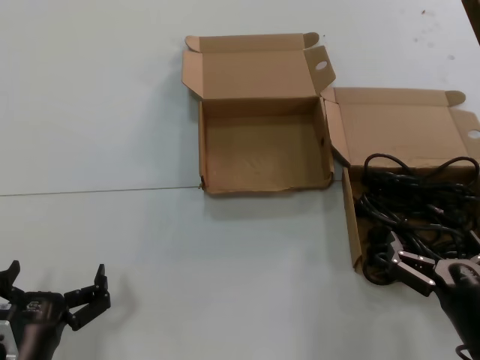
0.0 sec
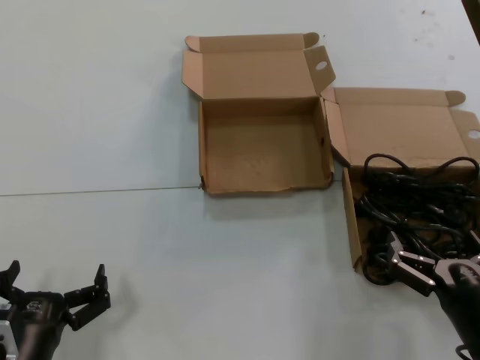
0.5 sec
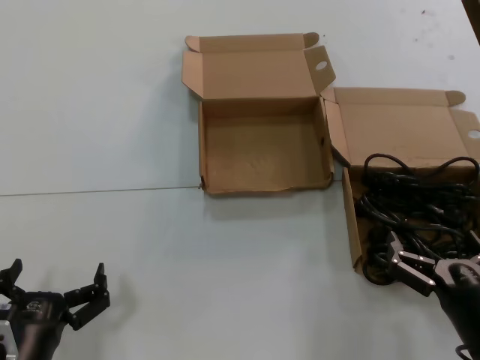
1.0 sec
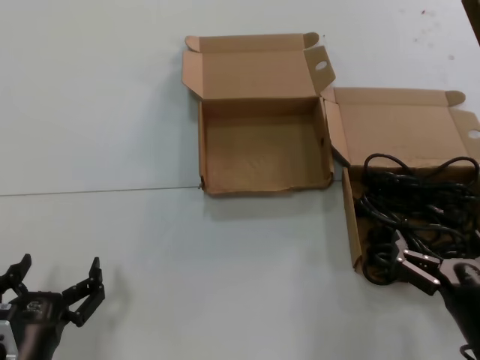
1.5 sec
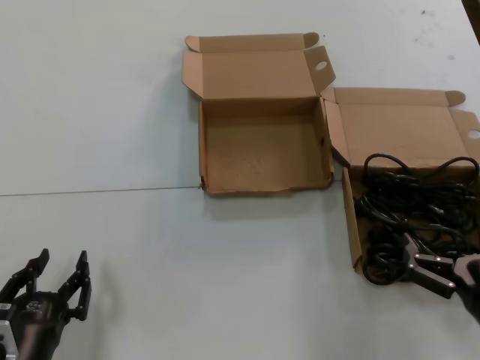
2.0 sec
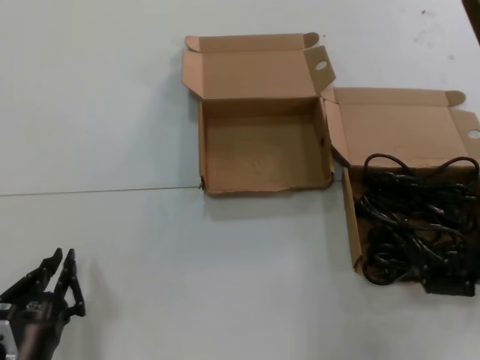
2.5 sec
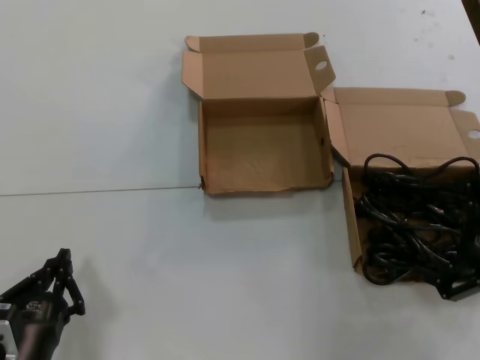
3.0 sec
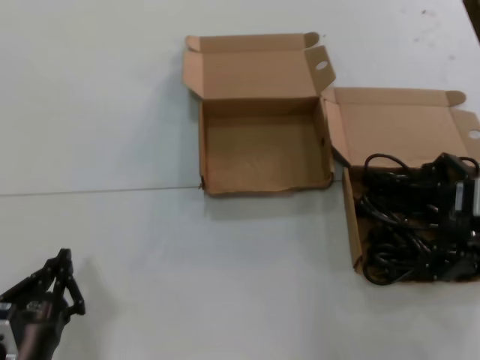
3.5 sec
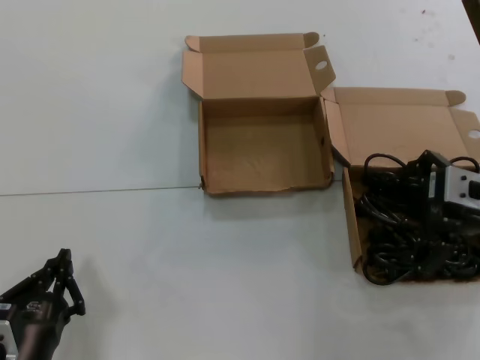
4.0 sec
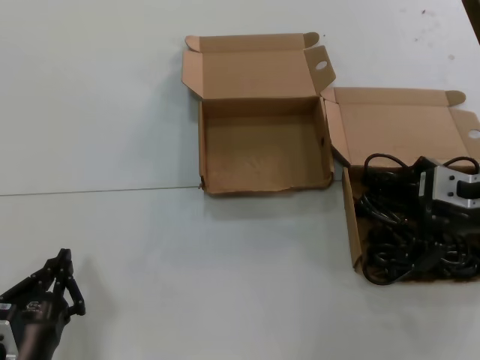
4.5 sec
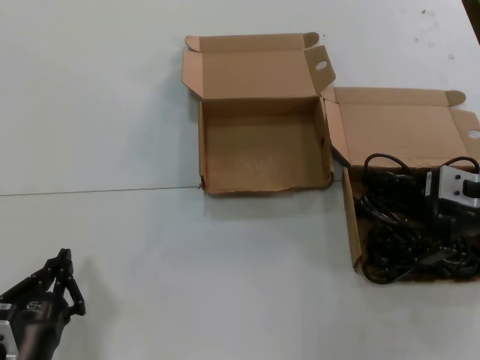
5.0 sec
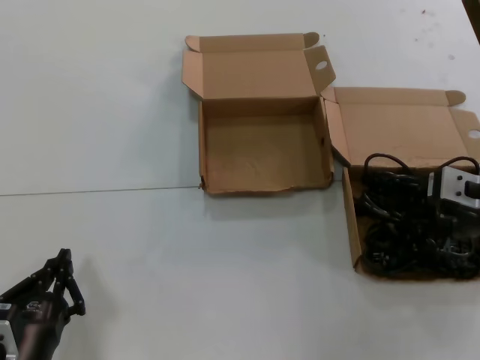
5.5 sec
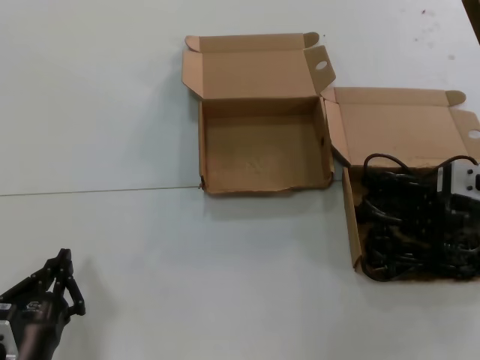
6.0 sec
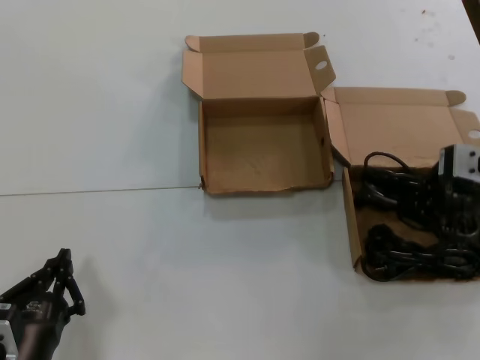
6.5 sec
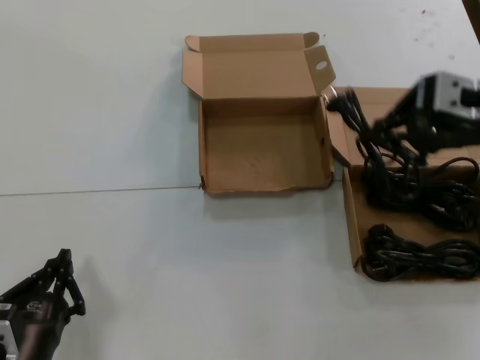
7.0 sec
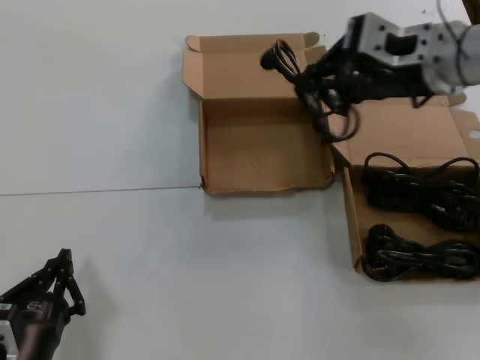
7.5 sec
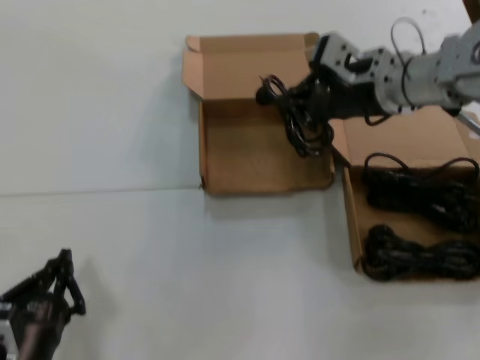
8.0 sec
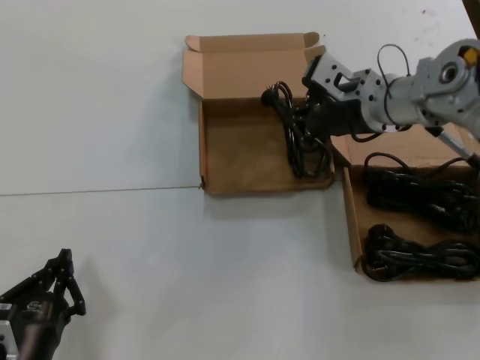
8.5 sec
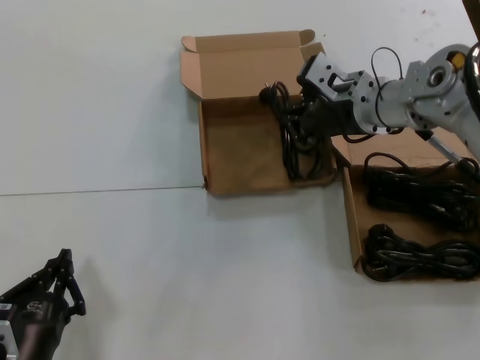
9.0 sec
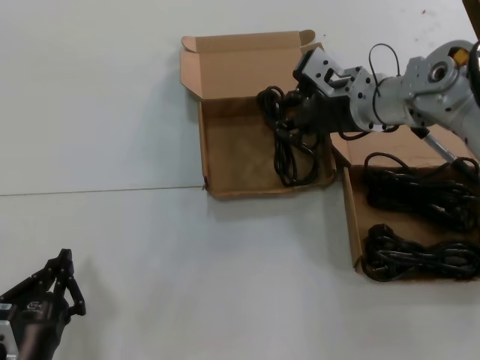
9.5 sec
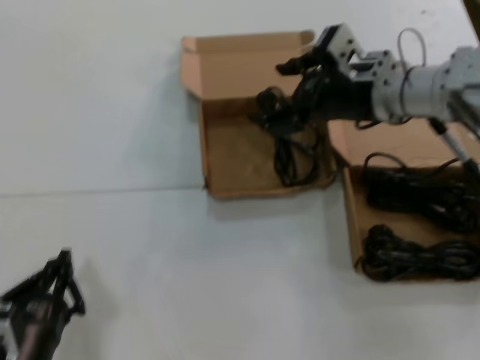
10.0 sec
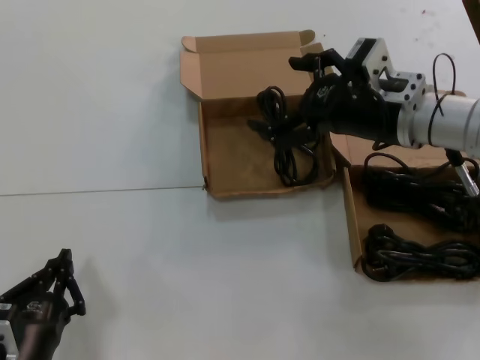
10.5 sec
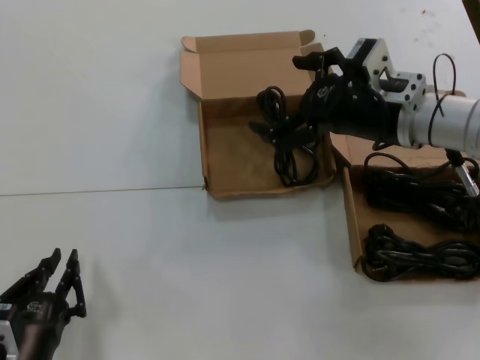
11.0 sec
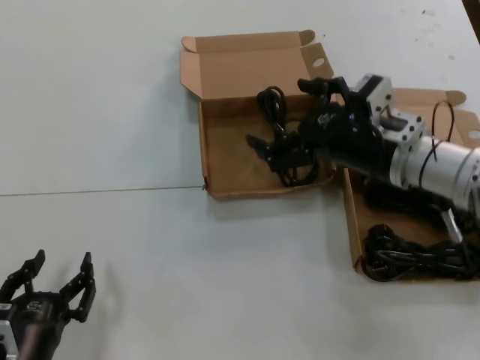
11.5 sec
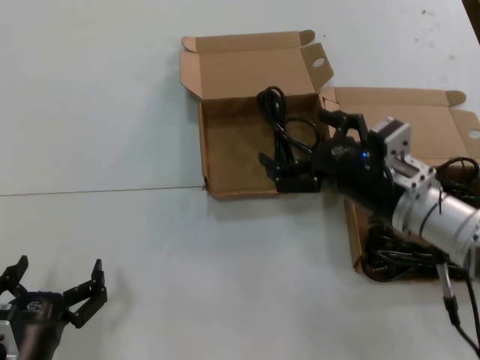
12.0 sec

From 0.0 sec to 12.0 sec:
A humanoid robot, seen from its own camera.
Task of the whole recording: take the parts from the box containing them and put them into an empty box.
Step, from 0.0 sec to 5.0 sec: Grasp the data cable.
Step, from 5.5 sec to 9.0 sec: Place the data cable in the another box.
From 0.0 sec to 2.0 sec: There are only small adjustments of the hands.
From 2.0 sec to 4.0 sec: The right hand goes approximately 25 cm upward and forward.
From 4.0 sec to 6.0 sec: The hands make only small movements.
From 6.0 sec to 8.0 sec: The right hand is displaced to the left, forward and upward by roughly 20 cm.
From 8.0 sec to 10.0 sec: The hands move only a little.
From 10.0 sec to 12.0 sec: The right hand goes some 15 cm downward and backward.

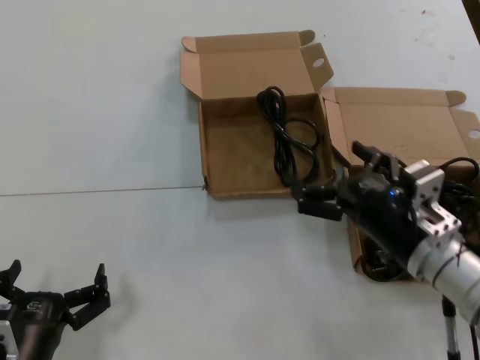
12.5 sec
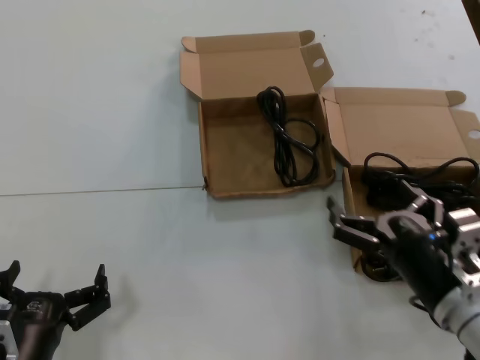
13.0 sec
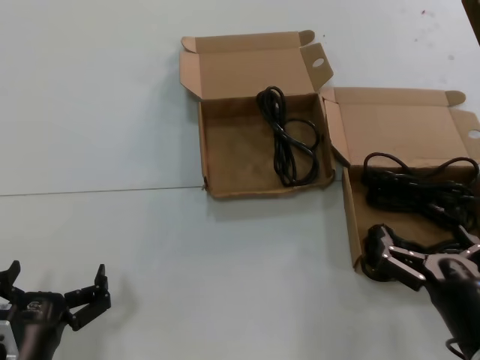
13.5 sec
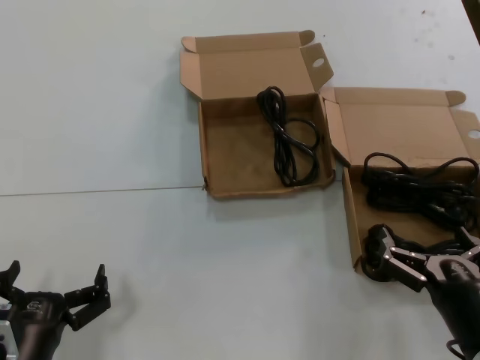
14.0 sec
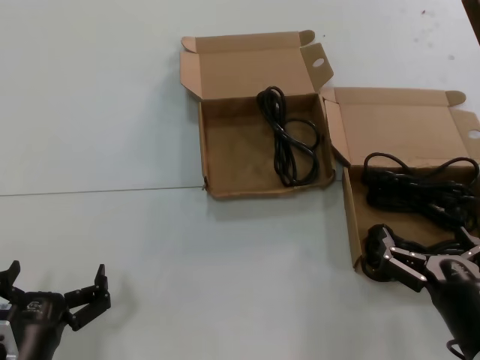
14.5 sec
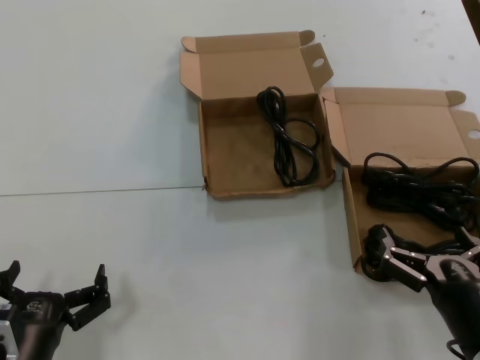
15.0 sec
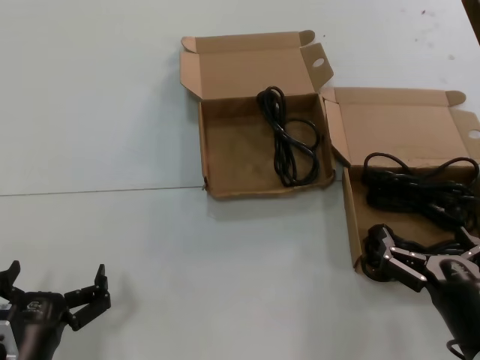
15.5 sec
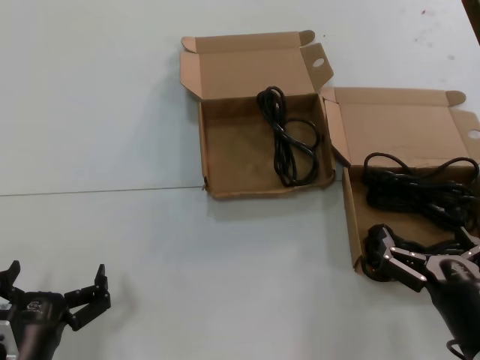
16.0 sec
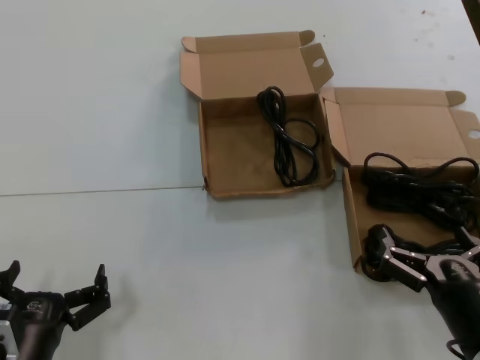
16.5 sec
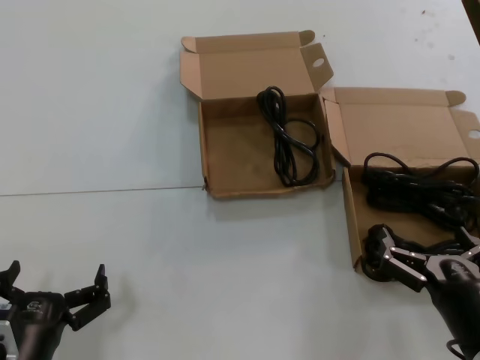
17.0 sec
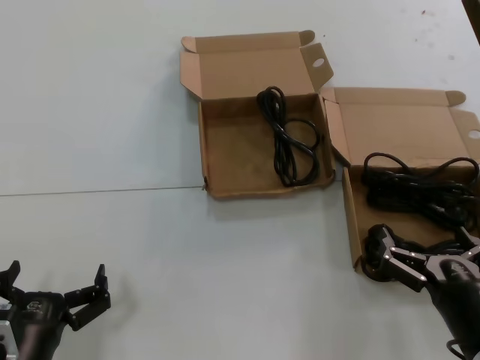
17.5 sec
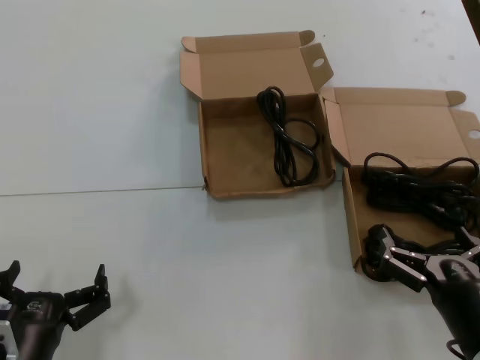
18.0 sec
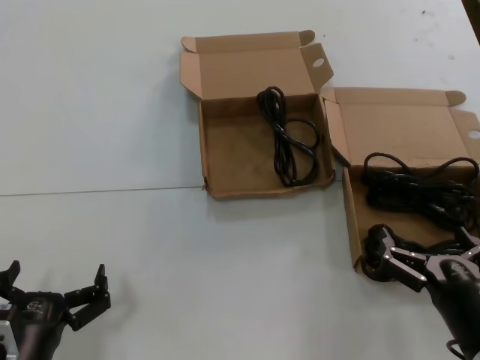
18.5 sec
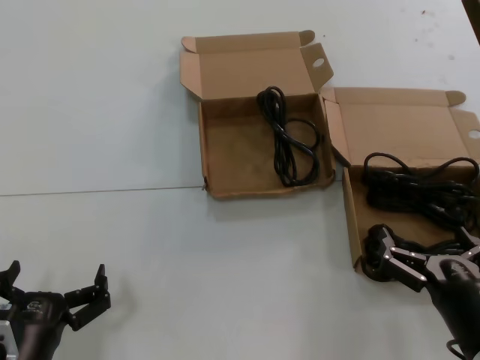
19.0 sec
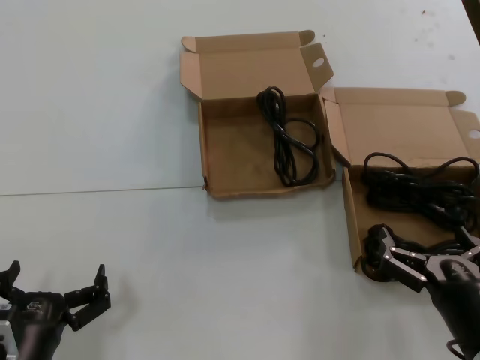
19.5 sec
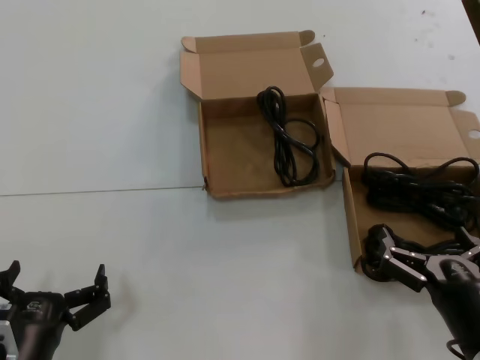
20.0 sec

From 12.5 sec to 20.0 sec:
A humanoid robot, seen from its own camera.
Task of the whole recording: take the parts from the box containing them and put them into an empty box.
From 12.5 sec to 14.5 sec: The right hand goes roughly 15 cm backward and downward.
From 14.5 sec to 20.0 sec: Neither hand changes place.

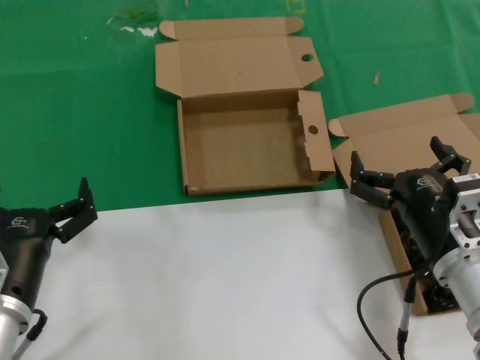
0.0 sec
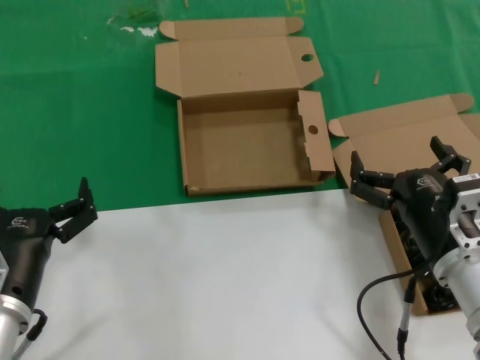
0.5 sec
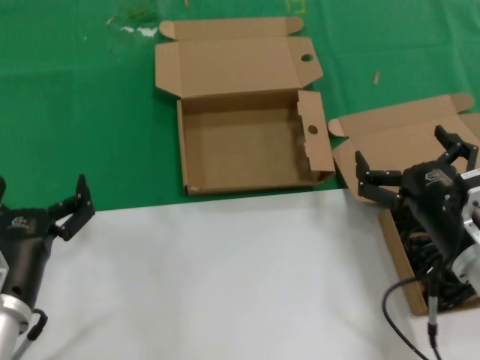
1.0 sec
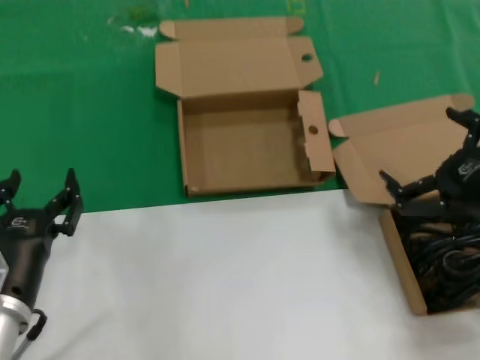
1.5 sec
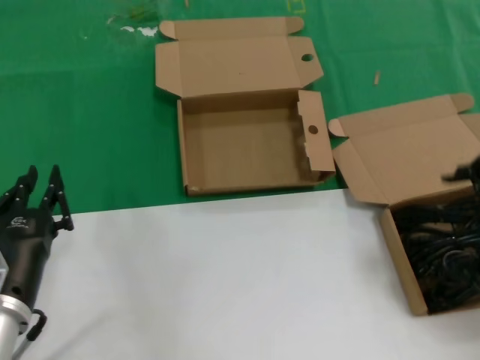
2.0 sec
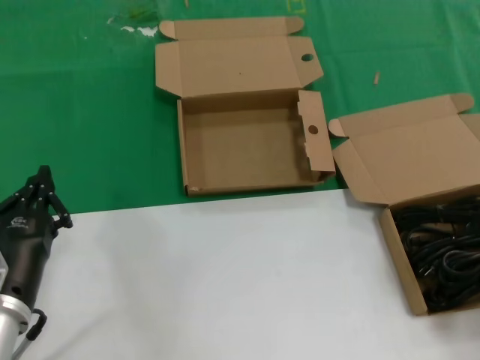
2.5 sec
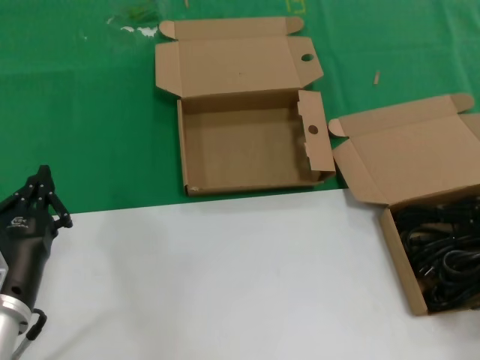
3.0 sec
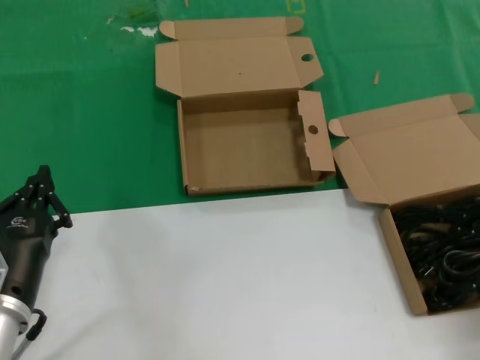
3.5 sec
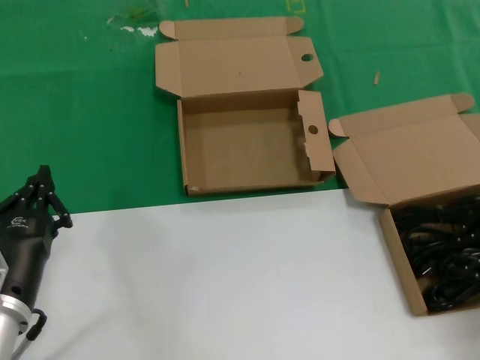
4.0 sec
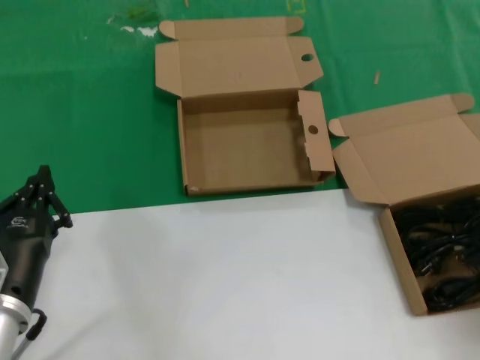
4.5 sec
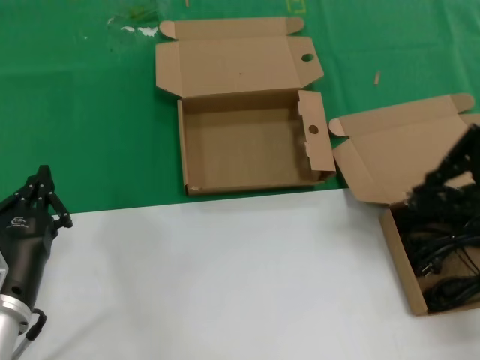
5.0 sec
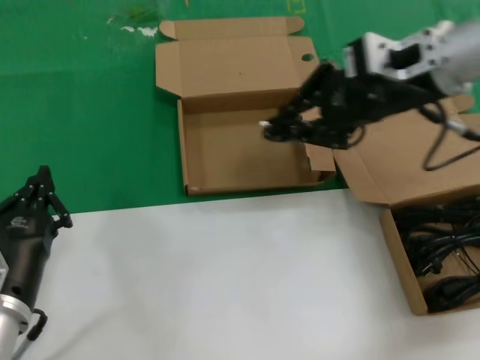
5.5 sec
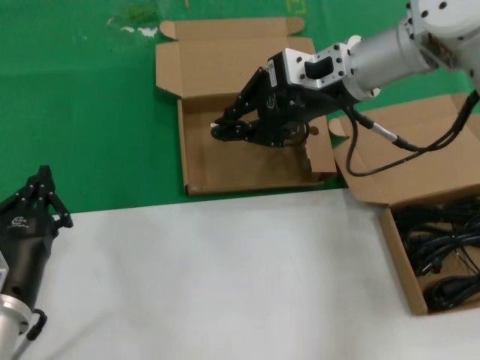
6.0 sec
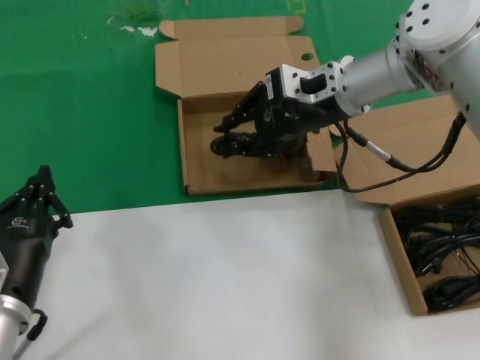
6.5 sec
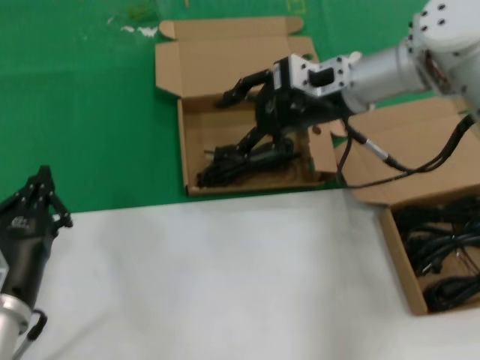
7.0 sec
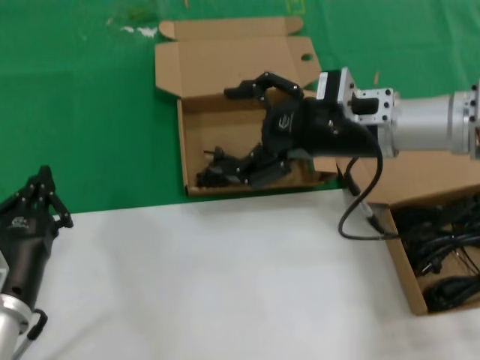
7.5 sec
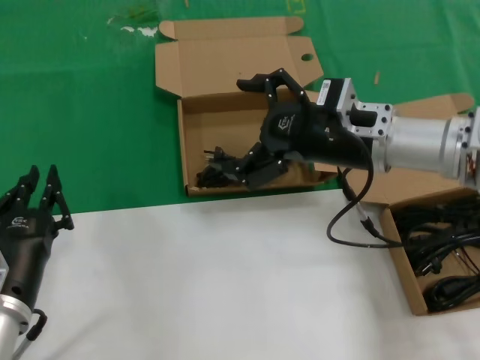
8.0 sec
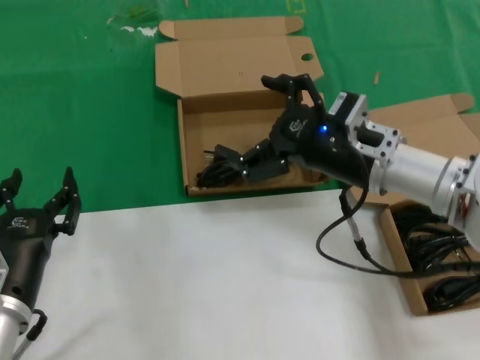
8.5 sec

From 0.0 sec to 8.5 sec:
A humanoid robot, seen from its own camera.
Task of the whole recording: take the parts from the box containing them and put them into an empty box.
Step, from 0.0 sec to 4.0 sec: Grasp the data cable.
Step, from 4.5 sec to 7.0 sec: Place the data cable in the another box.
From 0.0 sec to 2.0 sec: The right hand travels upward and to the right by approximately 20 cm.
From 2.0 sec to 4.0 sec: The right hand goes roughly 5 cm forward.
From 4.0 sec to 6.5 sec: The right hand travels to the left and forward by some 30 cm.
From 6.5 sec to 8.5 sec: The right hand shifts about 15 cm backward and downward.
